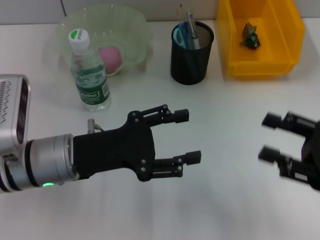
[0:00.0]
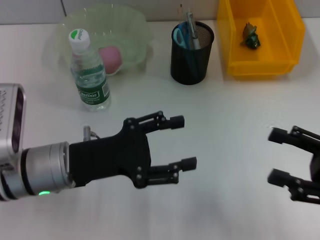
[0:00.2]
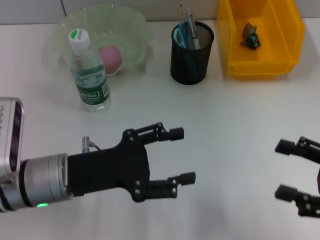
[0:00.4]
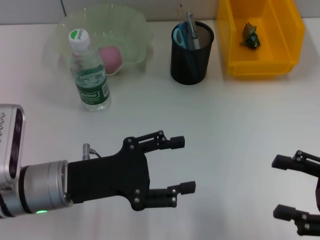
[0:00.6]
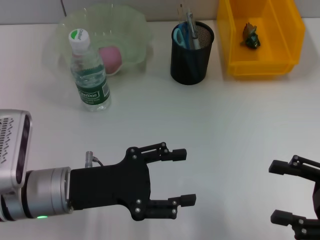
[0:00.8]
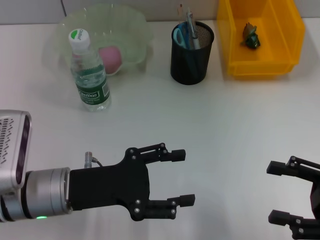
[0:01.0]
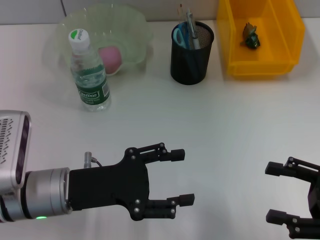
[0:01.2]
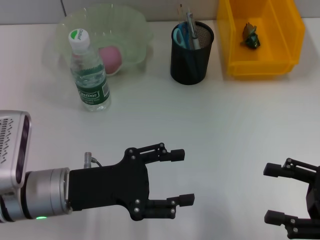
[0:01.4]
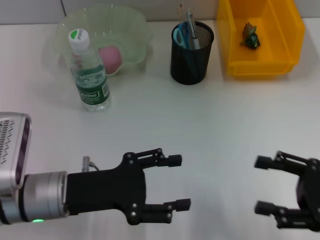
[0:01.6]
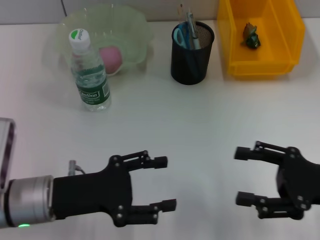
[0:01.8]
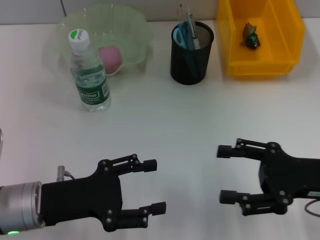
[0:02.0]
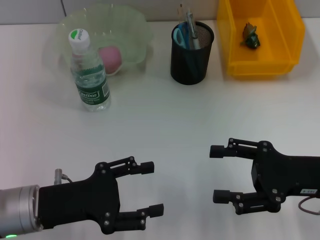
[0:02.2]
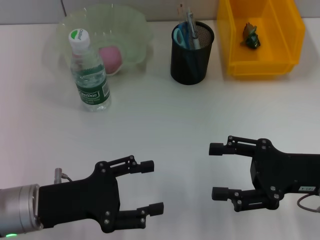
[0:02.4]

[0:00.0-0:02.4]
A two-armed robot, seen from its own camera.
0:01.2 to 0:02.4: The right gripper goes about 10 cm forward and to the left.
